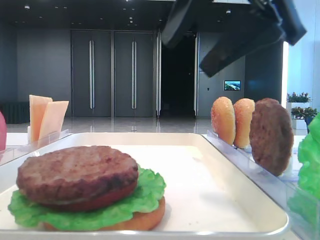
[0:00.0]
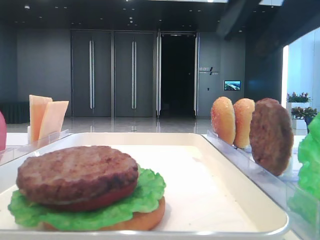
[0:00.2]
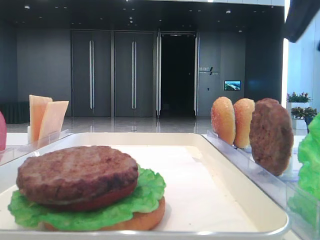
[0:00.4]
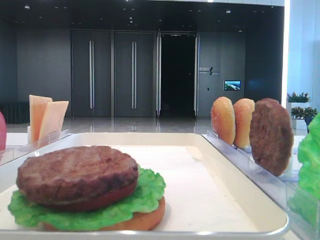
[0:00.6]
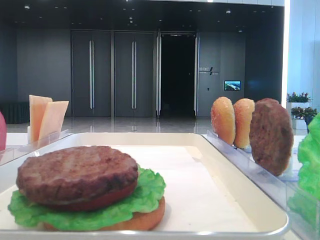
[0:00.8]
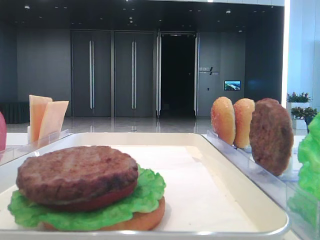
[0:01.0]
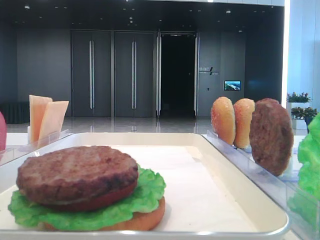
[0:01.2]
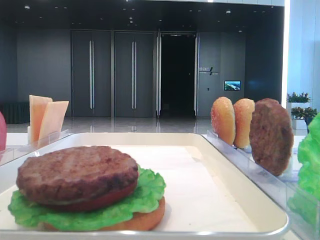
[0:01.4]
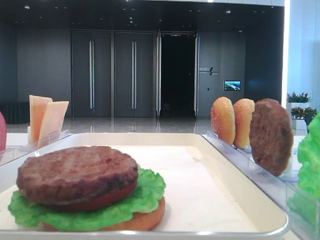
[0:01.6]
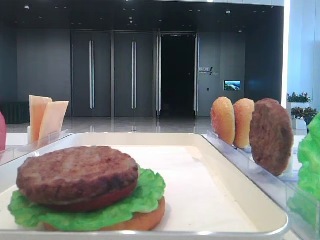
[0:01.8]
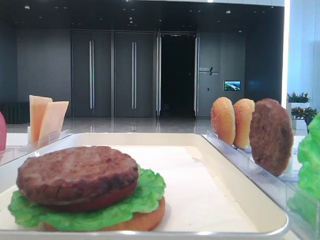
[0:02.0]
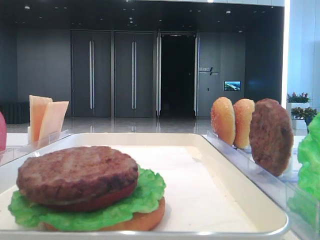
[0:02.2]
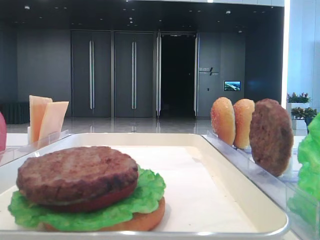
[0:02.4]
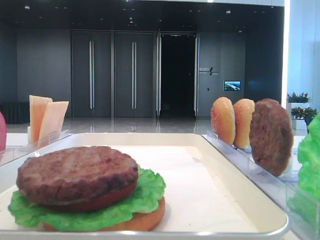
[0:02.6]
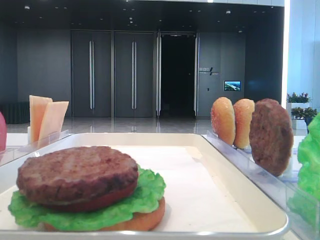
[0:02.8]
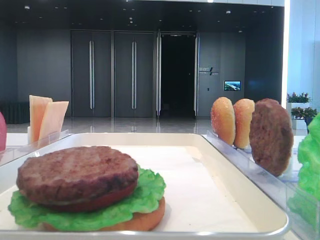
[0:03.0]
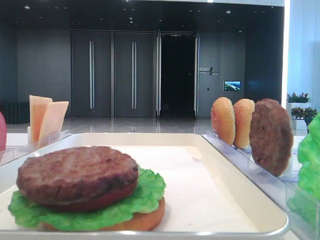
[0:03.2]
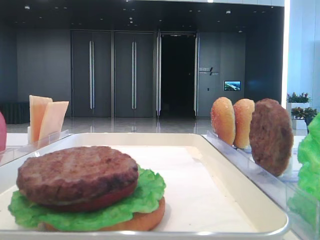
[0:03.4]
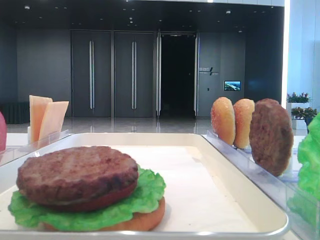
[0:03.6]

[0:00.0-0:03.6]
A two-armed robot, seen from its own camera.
0:00.0 to 0:01.8: The right gripper shifts roughly 25 cm to the right and backward.

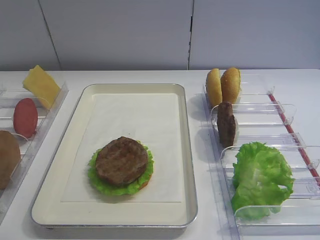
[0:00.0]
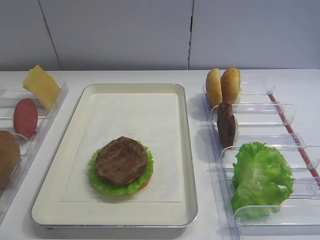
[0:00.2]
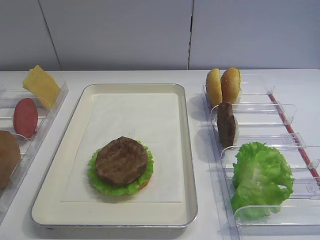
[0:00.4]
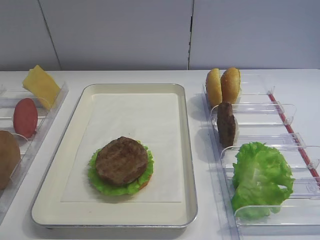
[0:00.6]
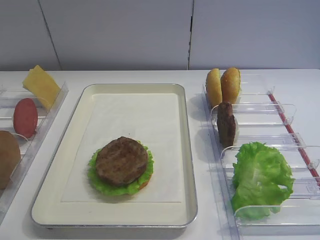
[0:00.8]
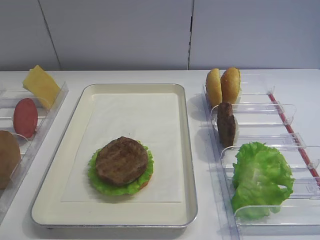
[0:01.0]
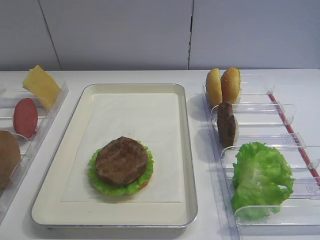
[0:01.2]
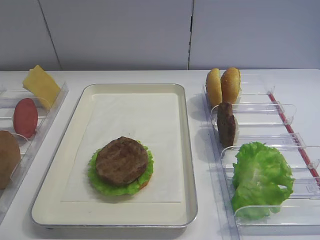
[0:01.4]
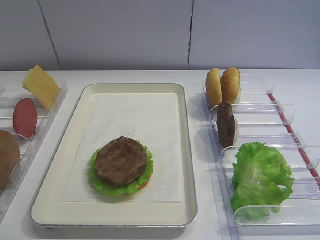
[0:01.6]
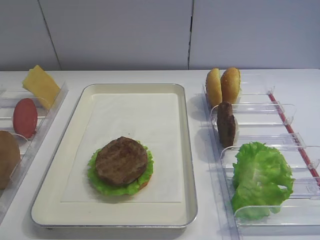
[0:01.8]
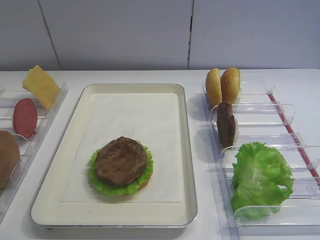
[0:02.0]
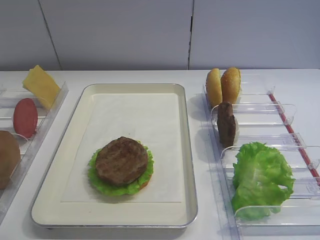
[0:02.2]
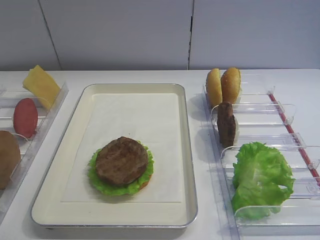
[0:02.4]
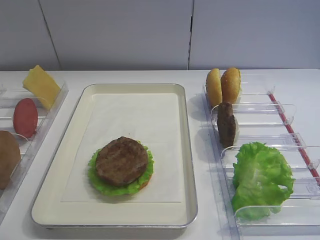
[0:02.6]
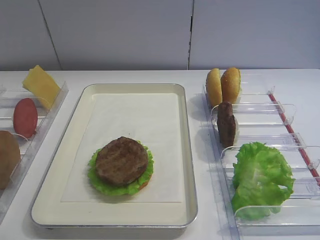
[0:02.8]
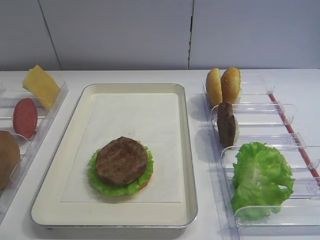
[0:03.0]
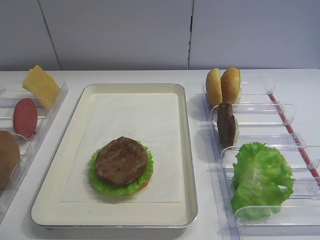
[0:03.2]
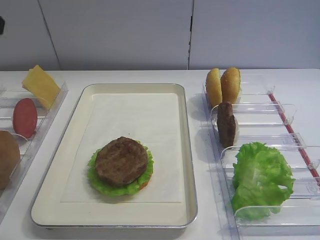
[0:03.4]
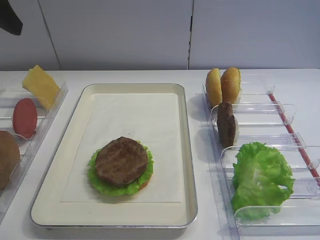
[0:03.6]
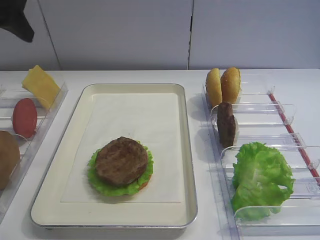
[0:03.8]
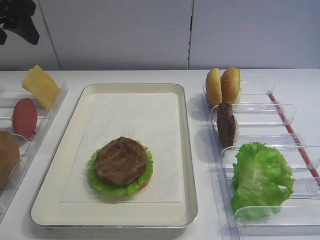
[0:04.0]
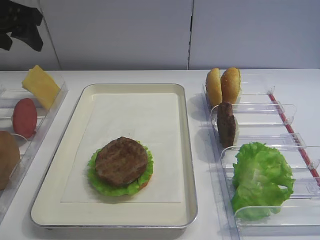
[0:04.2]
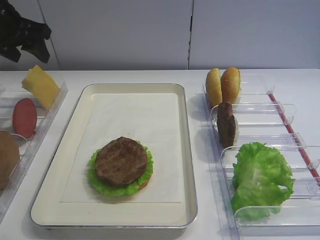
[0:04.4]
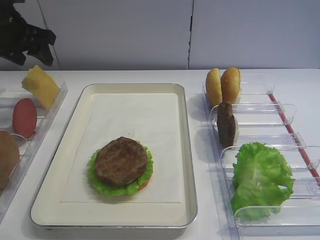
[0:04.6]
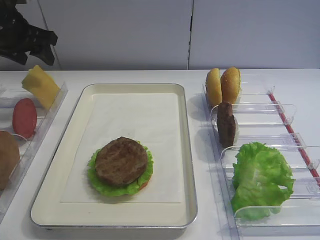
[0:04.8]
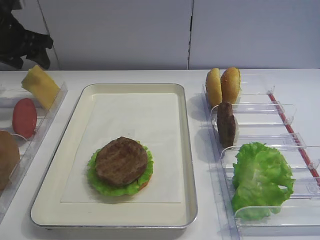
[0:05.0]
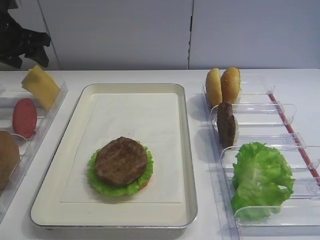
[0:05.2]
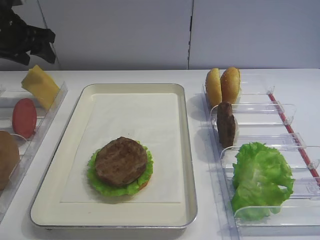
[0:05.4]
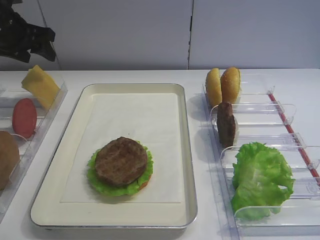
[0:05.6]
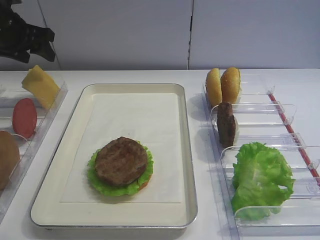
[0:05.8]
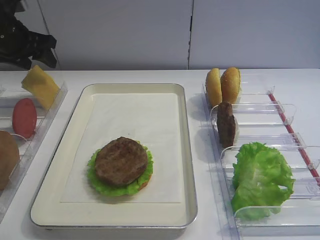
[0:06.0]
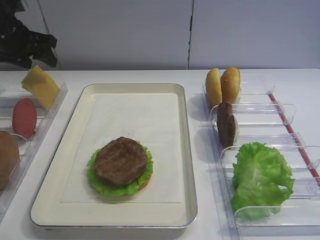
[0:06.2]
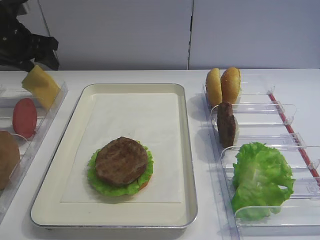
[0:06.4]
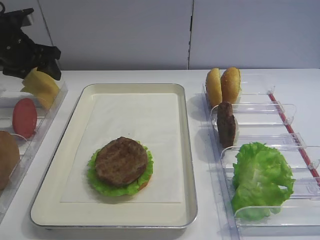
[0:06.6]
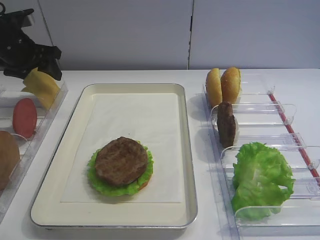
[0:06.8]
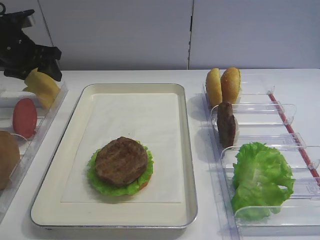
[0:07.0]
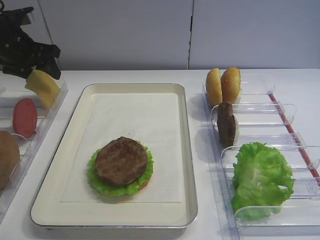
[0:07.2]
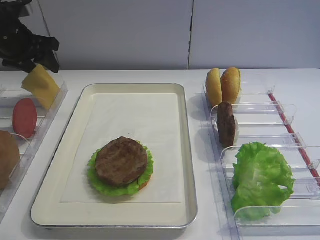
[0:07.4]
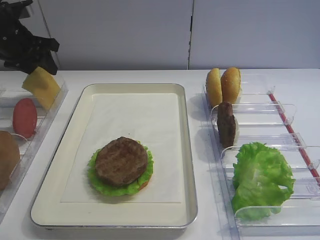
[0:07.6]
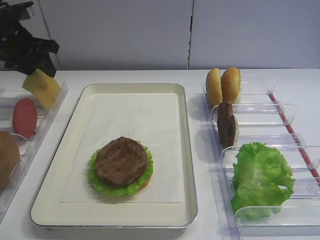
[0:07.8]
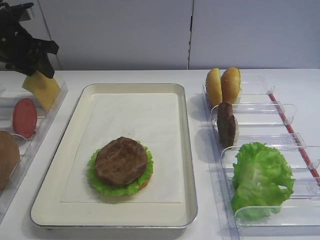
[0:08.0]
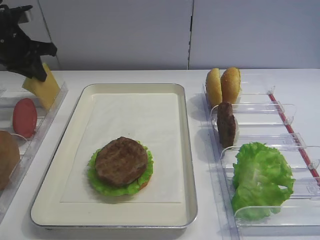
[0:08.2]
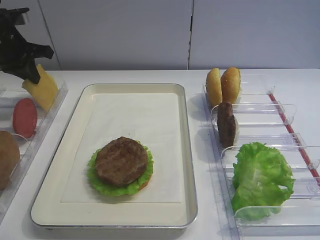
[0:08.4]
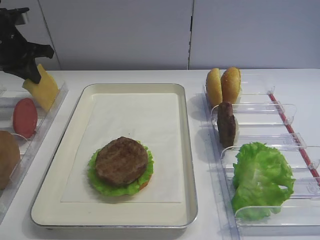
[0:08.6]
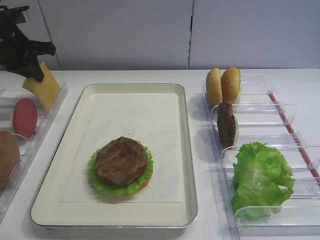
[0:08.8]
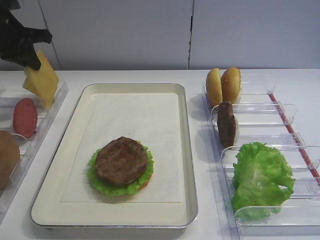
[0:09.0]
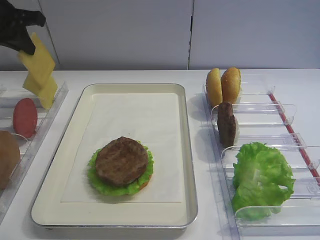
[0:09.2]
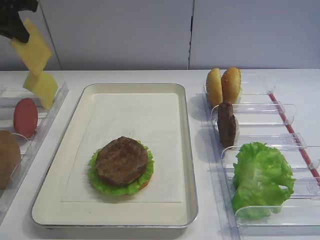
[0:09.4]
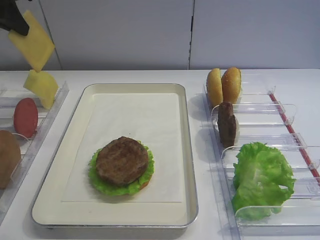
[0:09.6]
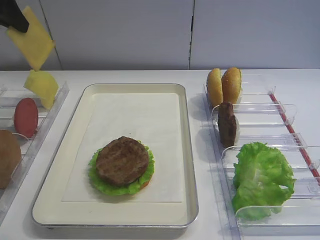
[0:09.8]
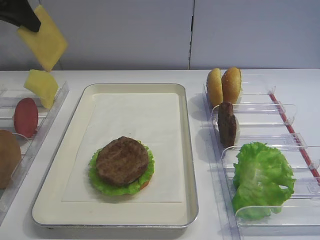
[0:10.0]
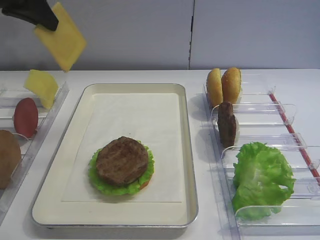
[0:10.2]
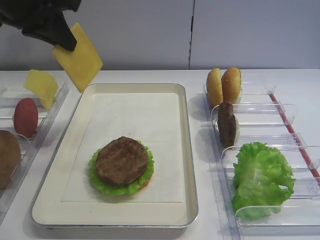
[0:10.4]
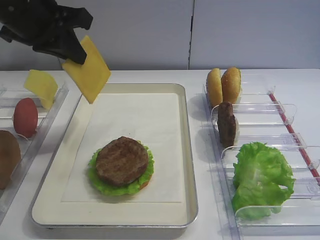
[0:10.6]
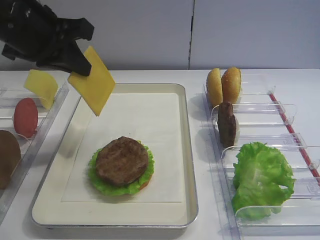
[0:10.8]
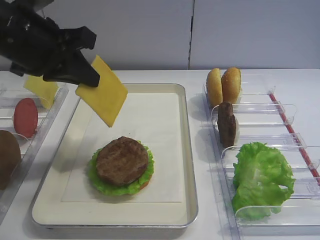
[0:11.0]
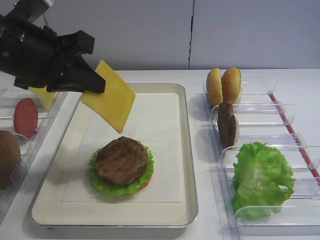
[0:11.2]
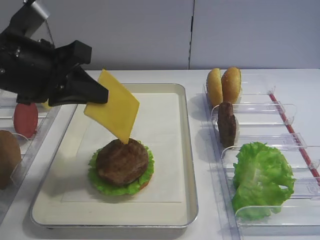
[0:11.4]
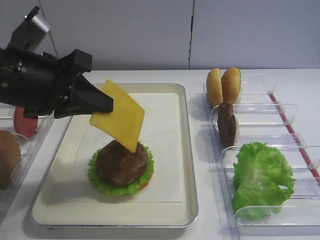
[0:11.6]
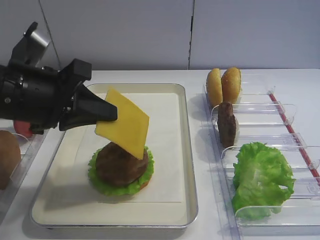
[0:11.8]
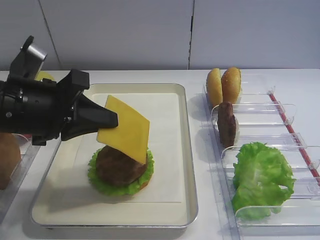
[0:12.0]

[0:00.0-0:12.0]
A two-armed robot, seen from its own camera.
Step, 0:00.0 to 0:09.2: Pick up the cheese slice with the left gripper.
0:03.0 to 0:04.4: The left gripper heads forward, covering about 25 cm.
0:04.4 to 0:06.0: The left gripper shifts by about 5 cm.
0:06.0 to 0:07.6: The grippers make only small movements.
0:07.6 to 0:09.0: The left gripper closes.
0:09.0 to 0:10.4: The left gripper moves to the right, backward and upward, about 15 cm.
0:10.4 to 0:12.0: The left gripper moves backward and downward, approximately 15 cm.

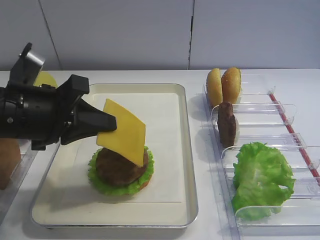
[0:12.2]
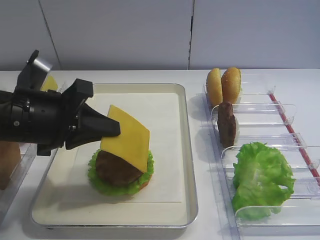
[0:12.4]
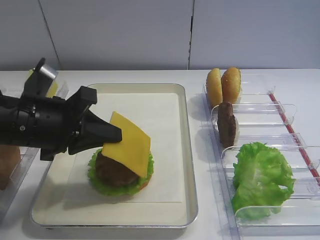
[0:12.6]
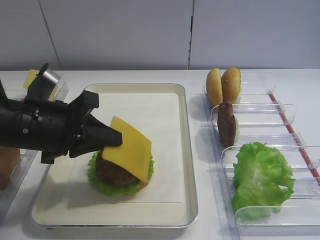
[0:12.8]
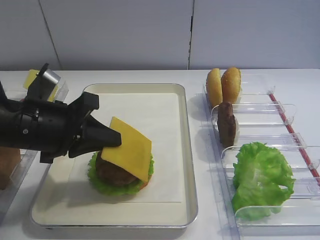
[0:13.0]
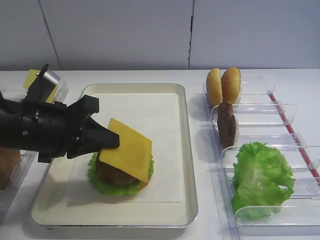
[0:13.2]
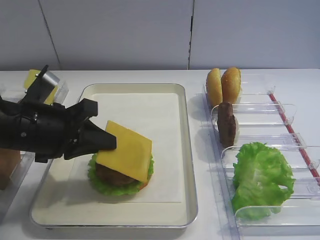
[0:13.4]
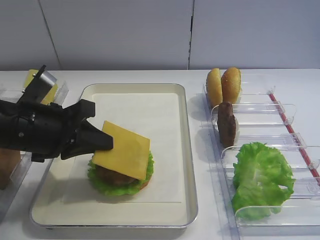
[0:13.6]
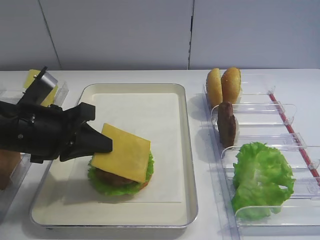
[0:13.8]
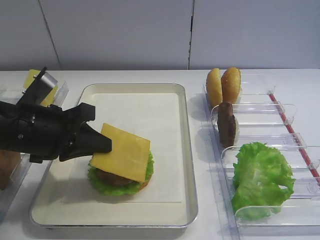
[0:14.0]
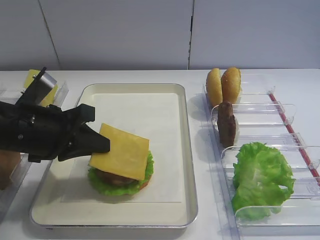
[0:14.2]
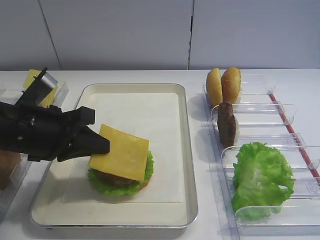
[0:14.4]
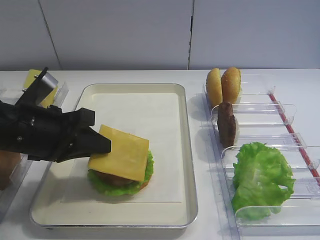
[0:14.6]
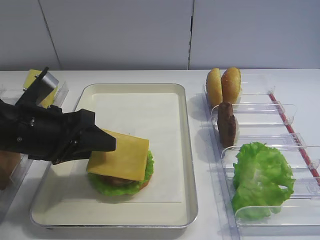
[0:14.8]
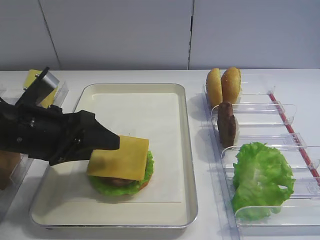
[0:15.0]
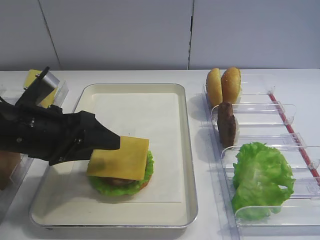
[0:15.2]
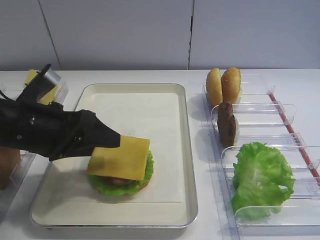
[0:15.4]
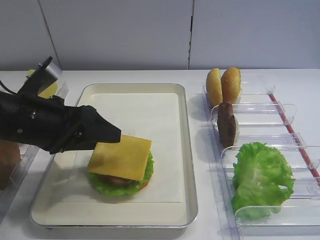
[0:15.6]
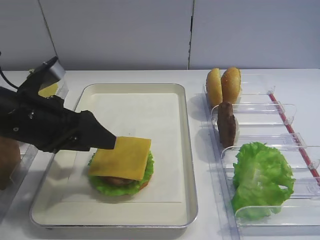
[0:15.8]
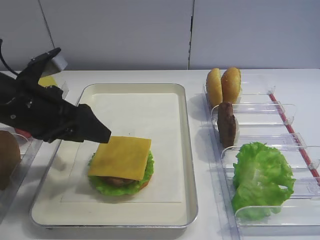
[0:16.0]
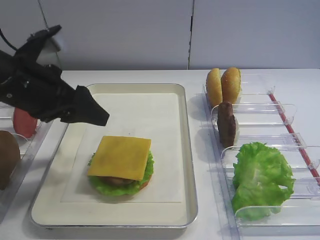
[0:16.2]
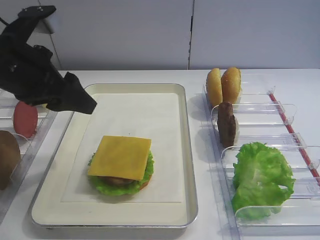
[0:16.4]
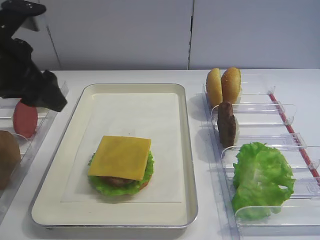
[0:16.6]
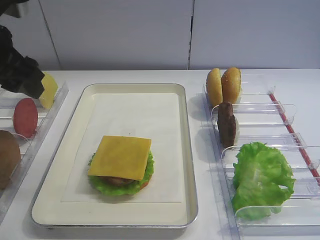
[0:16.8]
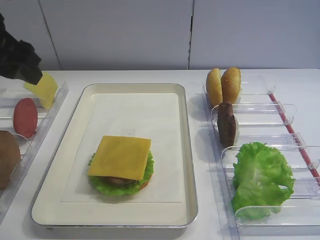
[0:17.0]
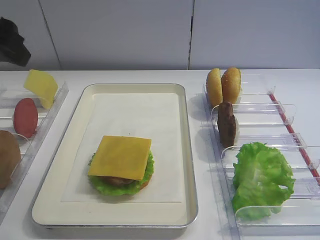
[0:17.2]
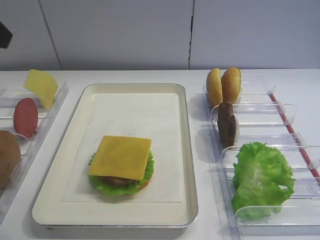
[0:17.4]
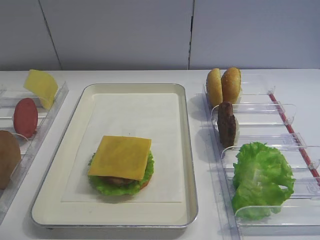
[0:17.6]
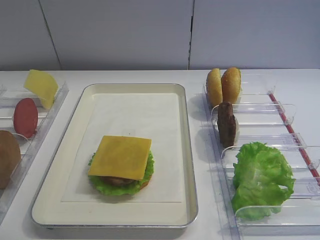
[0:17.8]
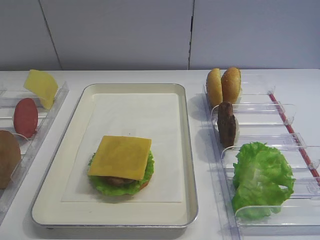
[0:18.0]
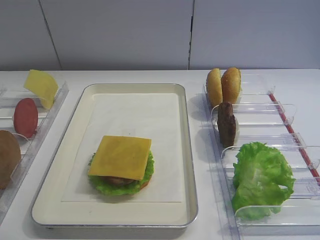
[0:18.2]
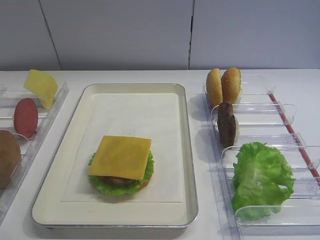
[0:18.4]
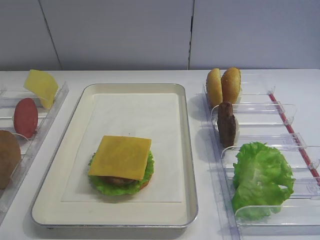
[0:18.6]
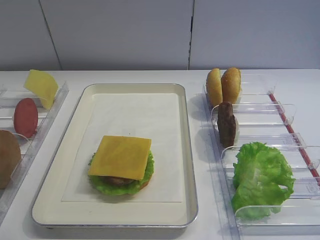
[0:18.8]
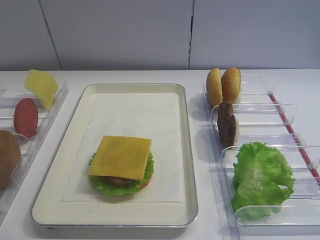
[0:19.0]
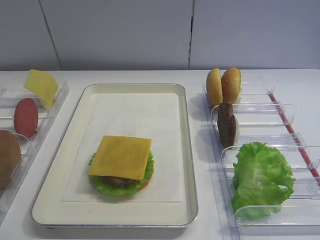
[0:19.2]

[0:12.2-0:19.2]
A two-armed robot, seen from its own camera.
Step, 0:12.2 to 0:16.2: Place the cheese slice on the cutlet with the left gripper.
0:12.2 to 0:13.6: There are only small adjustments of the grippers.
0:13.6 to 0:15.0: The left gripper opens up.
0:15.0 to 0:16.4: The left gripper travels upward by roughly 10 cm.
0:16.4 to 0:17.8: The left gripper goes roughly 20 cm upward, backward and to the left.
